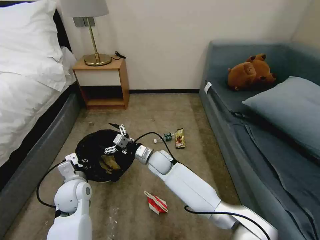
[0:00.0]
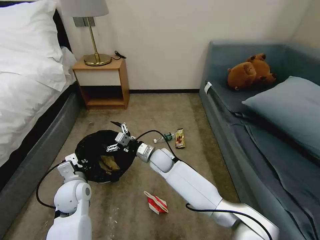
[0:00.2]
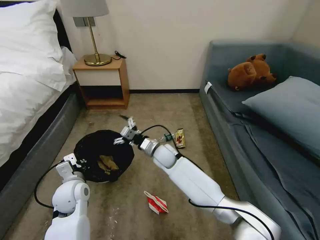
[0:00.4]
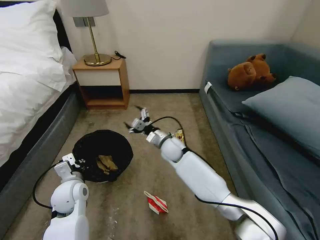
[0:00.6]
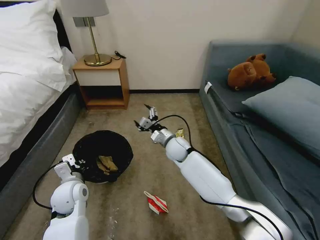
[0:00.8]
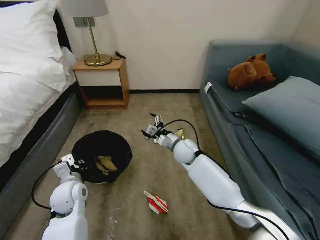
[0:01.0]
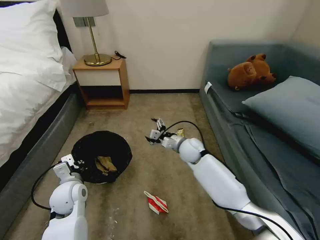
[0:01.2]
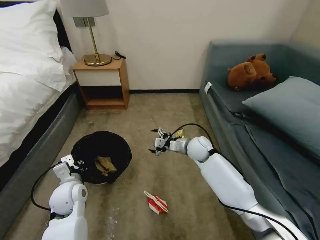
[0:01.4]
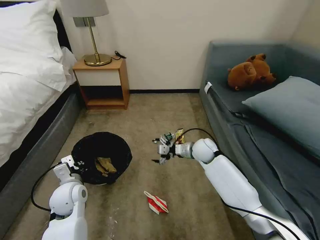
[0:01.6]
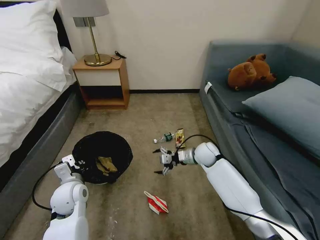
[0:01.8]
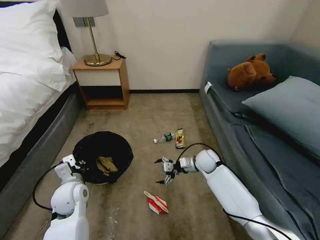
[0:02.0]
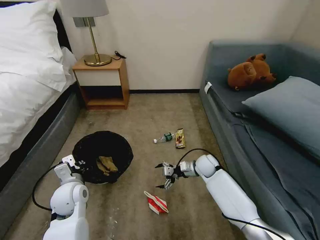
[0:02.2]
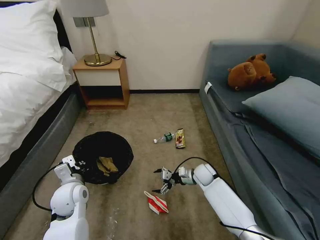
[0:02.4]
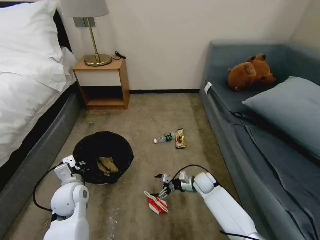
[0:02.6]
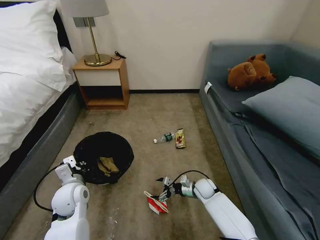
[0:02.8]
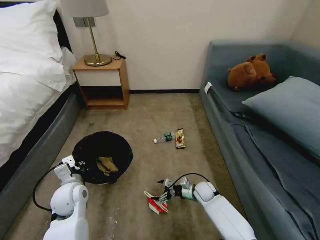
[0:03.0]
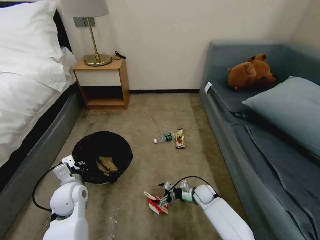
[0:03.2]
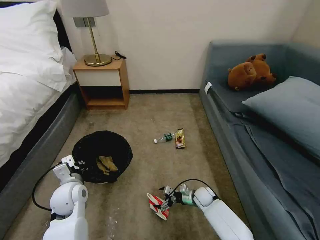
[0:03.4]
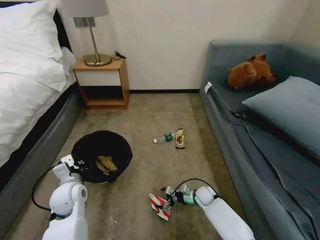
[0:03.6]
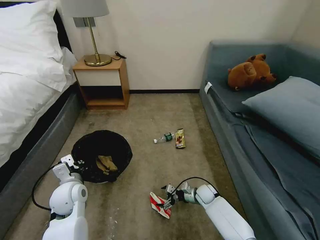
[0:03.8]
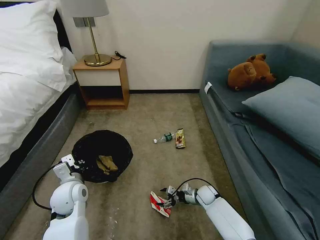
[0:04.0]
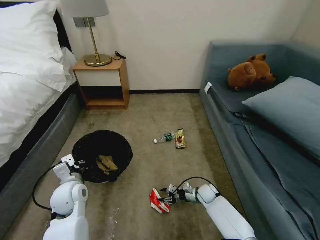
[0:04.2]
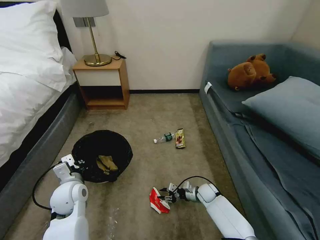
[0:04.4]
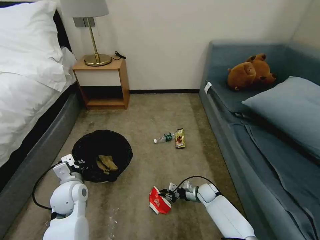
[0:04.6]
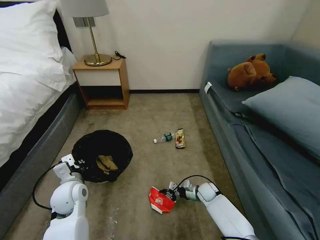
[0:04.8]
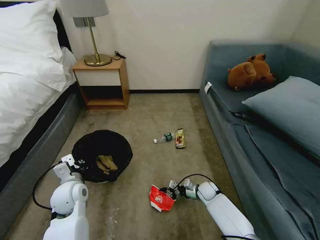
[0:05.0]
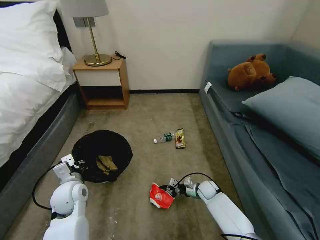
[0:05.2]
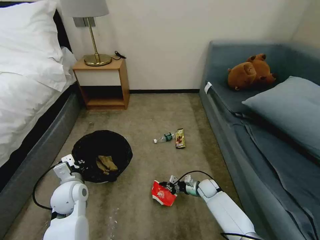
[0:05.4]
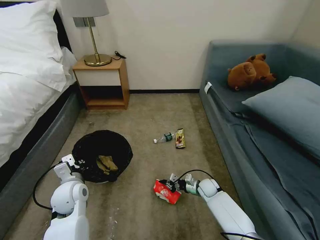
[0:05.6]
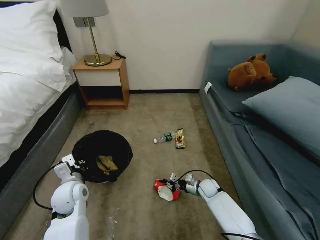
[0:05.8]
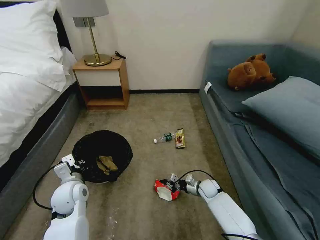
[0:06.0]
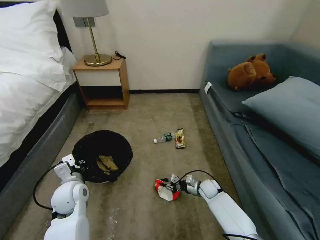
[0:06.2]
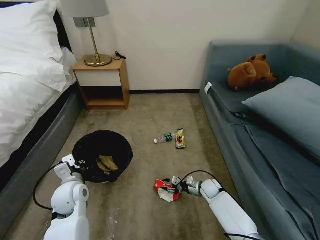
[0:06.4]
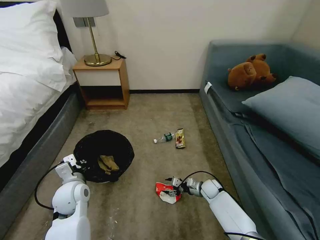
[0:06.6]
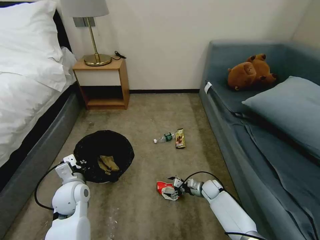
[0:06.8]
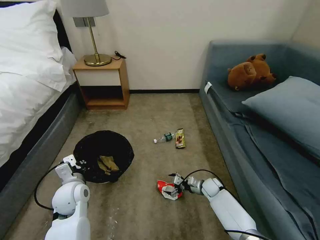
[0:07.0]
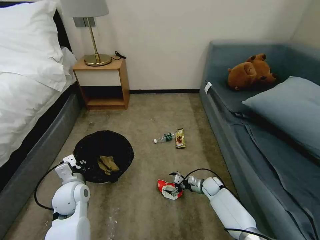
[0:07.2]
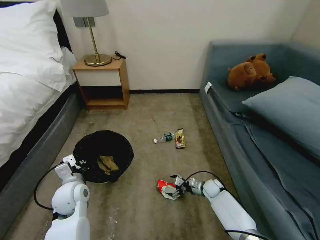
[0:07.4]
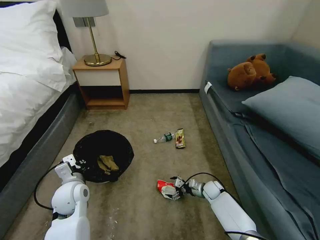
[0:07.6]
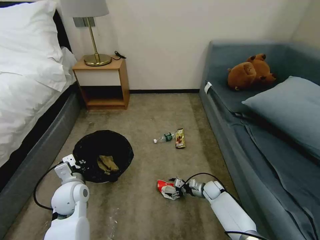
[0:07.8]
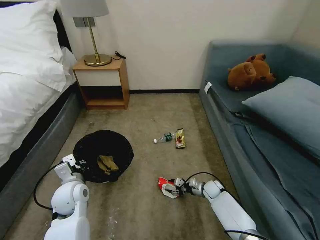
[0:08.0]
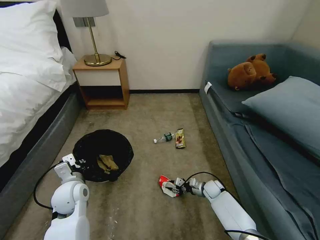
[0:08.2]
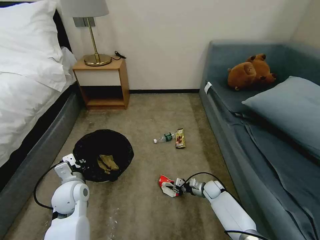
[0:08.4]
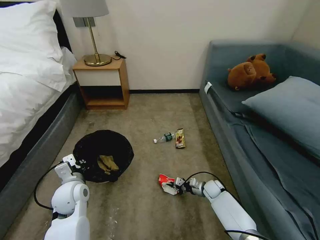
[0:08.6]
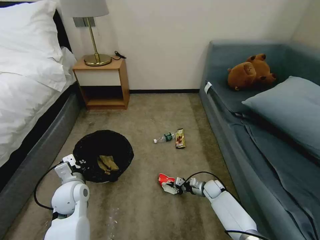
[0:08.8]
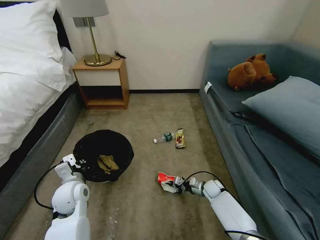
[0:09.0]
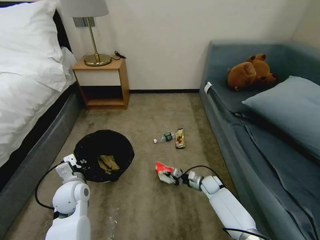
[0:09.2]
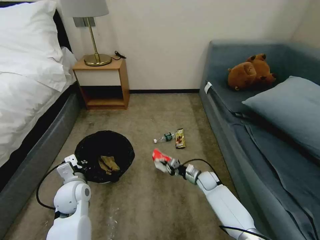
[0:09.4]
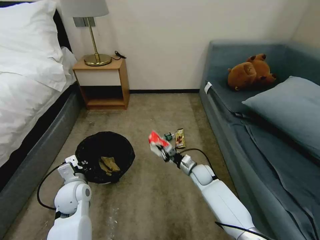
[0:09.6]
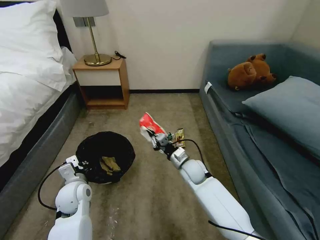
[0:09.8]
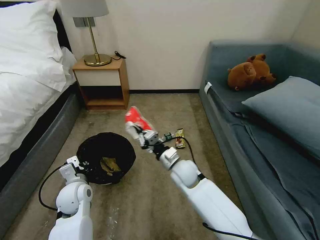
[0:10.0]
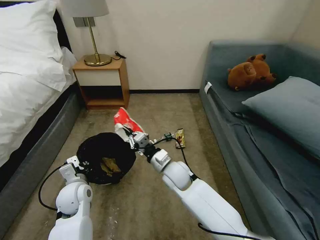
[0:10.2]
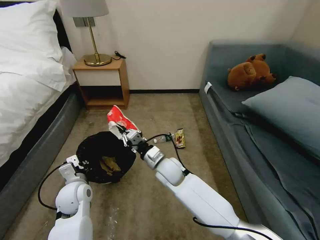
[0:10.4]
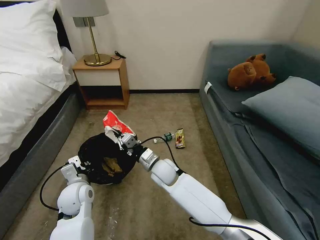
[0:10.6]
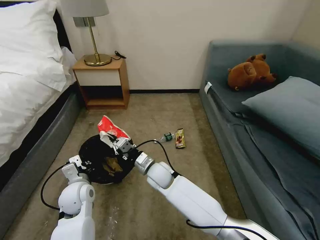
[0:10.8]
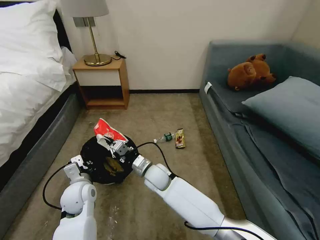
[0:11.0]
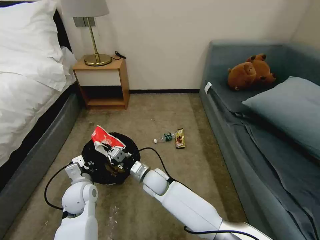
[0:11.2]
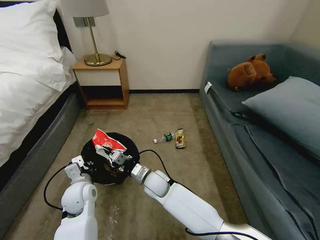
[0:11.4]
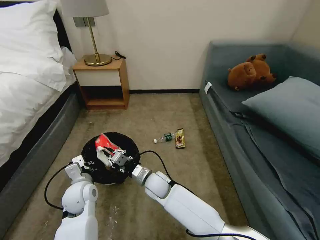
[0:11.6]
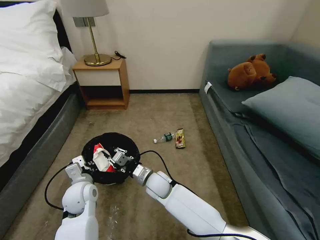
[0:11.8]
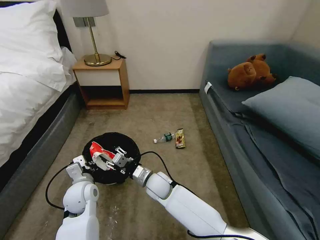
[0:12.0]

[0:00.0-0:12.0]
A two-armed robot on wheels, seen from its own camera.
Task of the whole recording: Pick up the trash bin, then pick up the garbage on the floor and place it into the trash bin.
0:00.0 to 0:01.6: The right gripper travels to the right by some 20 cm.
0:01.6 to 0:03.0: The right gripper heads downward and backward, covering about 20 cm.
0:03.0 to 0:04.4: The right gripper closes its fingers.
0:04.4 to 0:06.0: The right gripper closes.
0:06.0 to 0:07.6: The right gripper opens its fingers.
0:07.6 to 0:09.0: The right gripper closes its fingers.
0:09.0 to 0:10.4: The right gripper shifts roughly 35 cm to the left and upward.
0:10.4 to 0:12.0: The right gripper moves downward, some 5 cm, and opens.

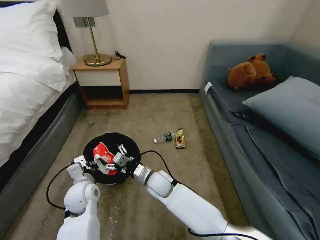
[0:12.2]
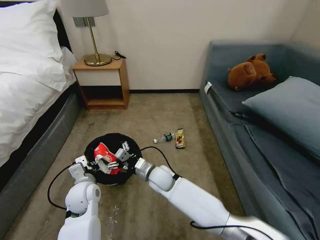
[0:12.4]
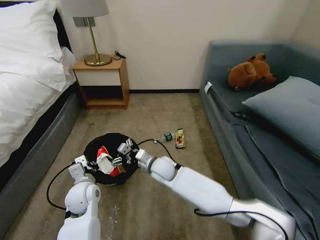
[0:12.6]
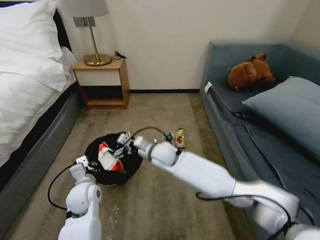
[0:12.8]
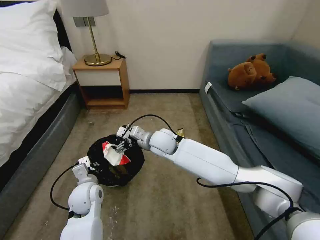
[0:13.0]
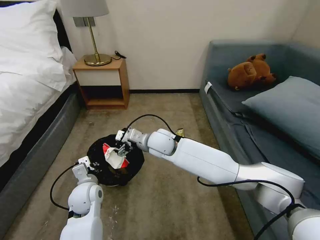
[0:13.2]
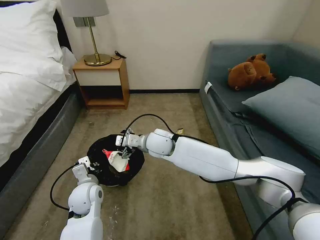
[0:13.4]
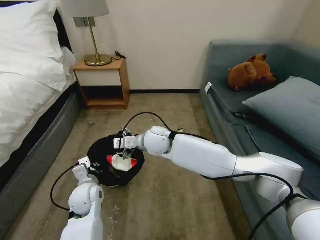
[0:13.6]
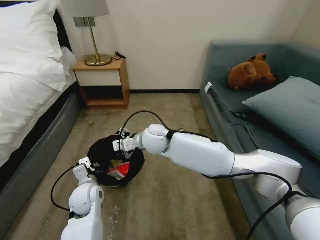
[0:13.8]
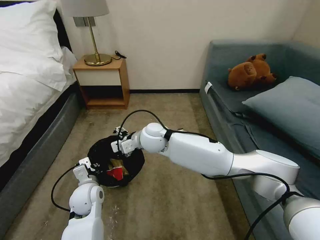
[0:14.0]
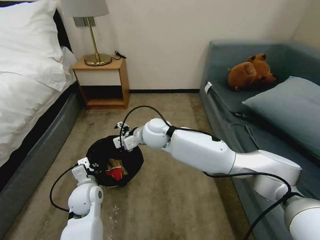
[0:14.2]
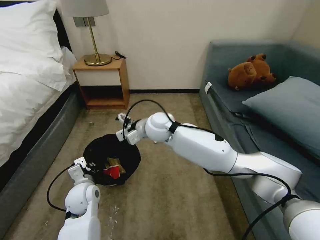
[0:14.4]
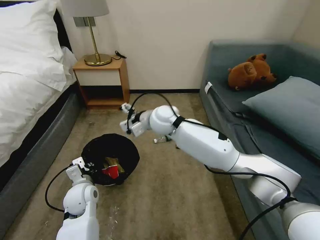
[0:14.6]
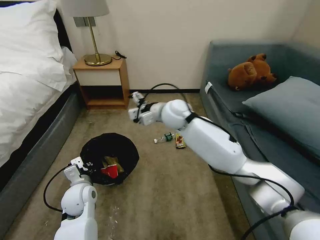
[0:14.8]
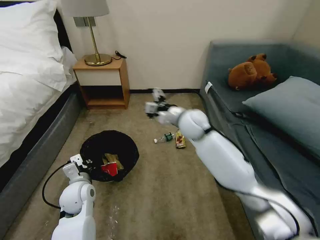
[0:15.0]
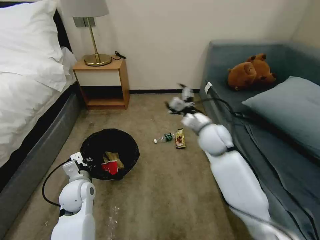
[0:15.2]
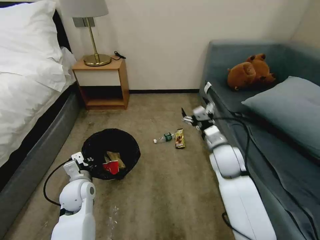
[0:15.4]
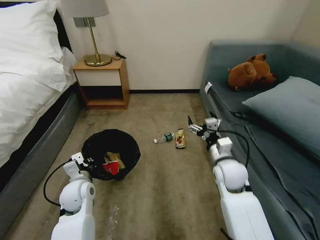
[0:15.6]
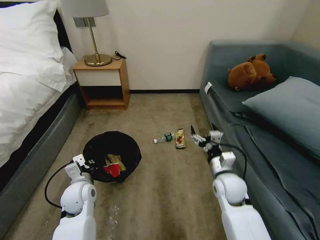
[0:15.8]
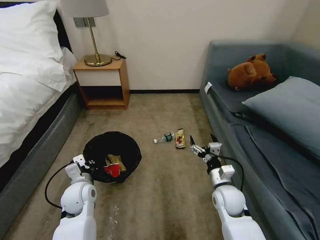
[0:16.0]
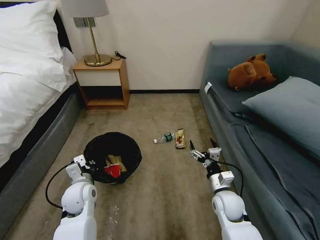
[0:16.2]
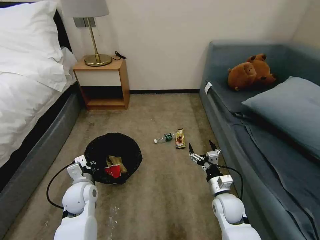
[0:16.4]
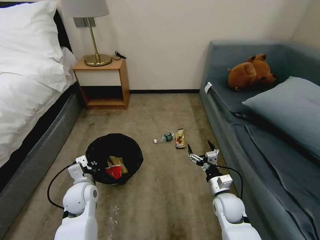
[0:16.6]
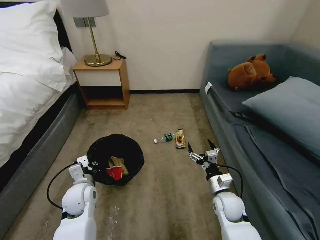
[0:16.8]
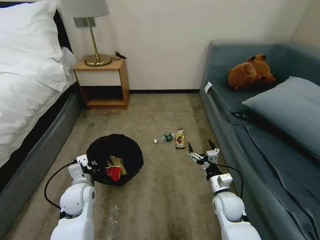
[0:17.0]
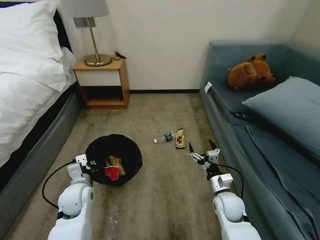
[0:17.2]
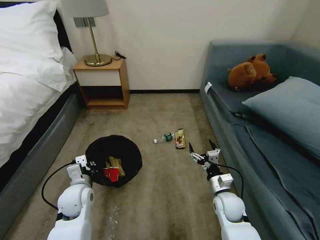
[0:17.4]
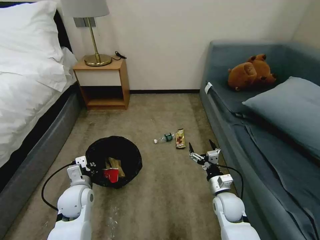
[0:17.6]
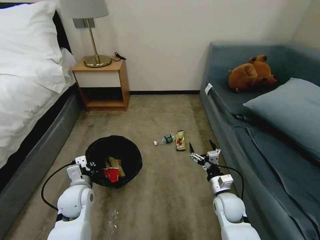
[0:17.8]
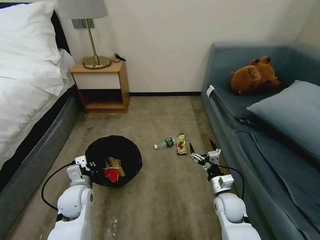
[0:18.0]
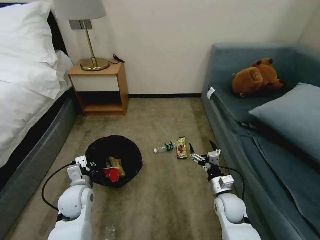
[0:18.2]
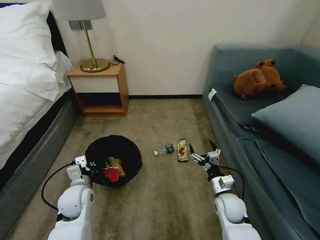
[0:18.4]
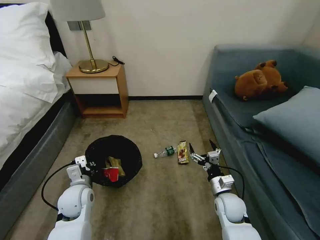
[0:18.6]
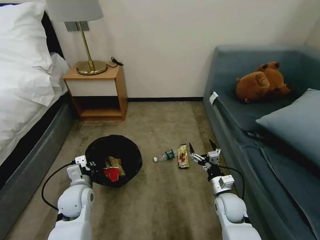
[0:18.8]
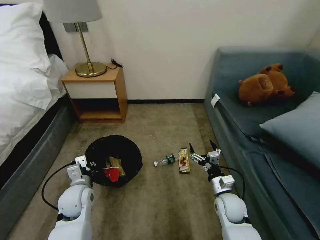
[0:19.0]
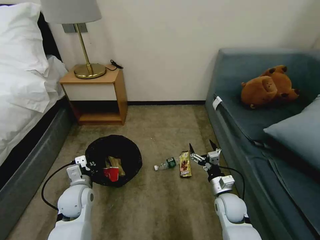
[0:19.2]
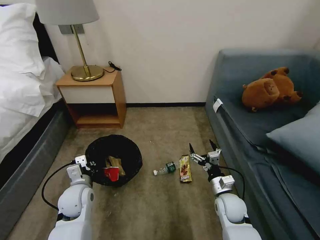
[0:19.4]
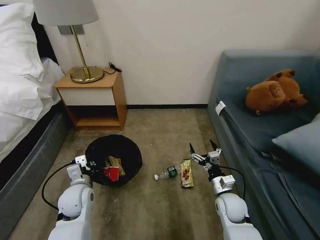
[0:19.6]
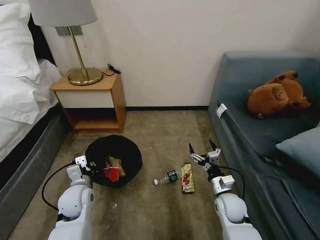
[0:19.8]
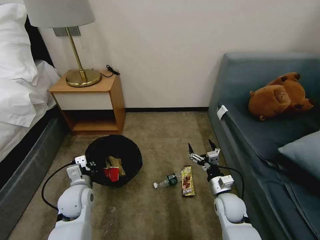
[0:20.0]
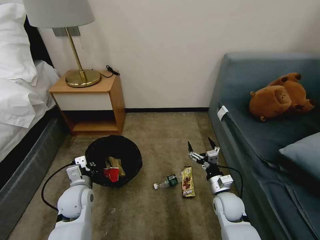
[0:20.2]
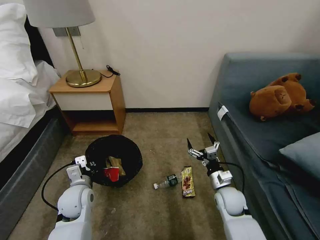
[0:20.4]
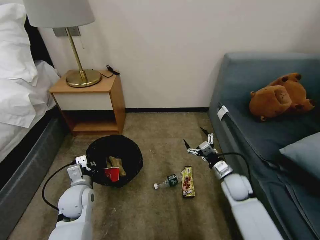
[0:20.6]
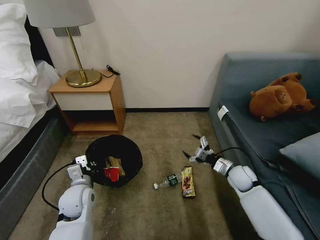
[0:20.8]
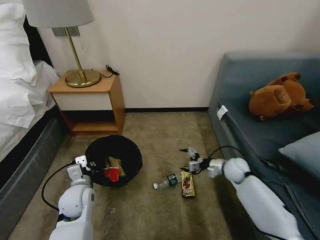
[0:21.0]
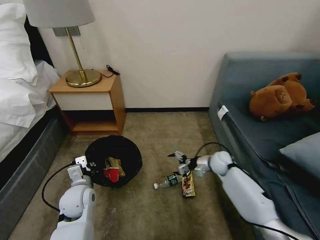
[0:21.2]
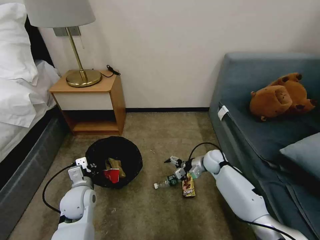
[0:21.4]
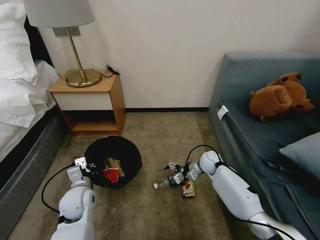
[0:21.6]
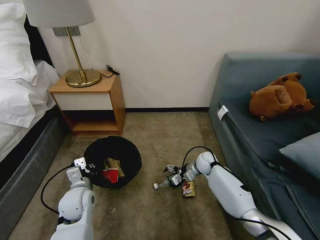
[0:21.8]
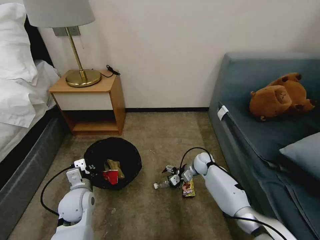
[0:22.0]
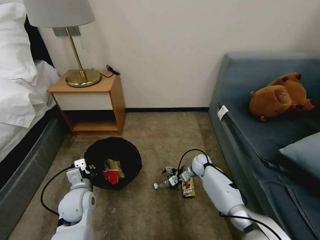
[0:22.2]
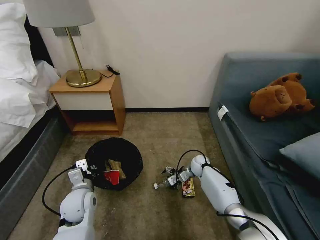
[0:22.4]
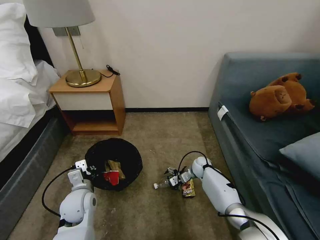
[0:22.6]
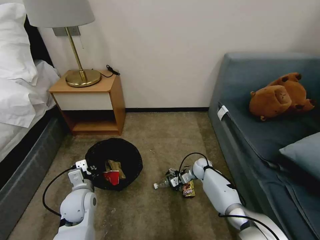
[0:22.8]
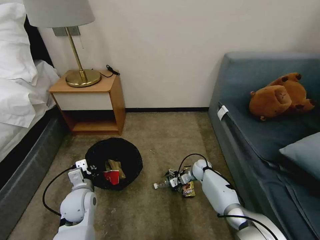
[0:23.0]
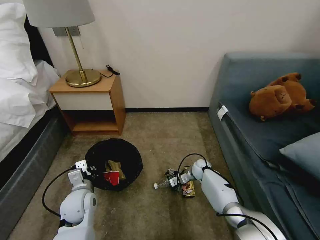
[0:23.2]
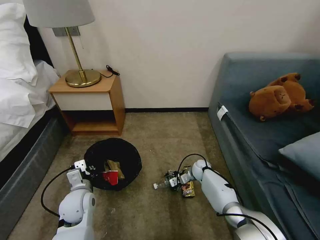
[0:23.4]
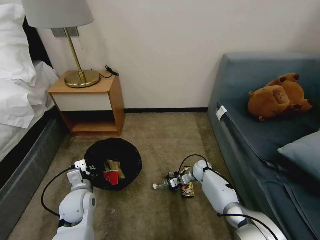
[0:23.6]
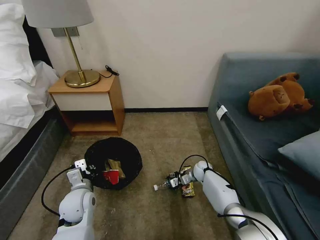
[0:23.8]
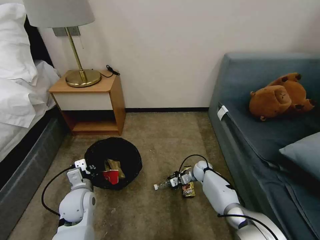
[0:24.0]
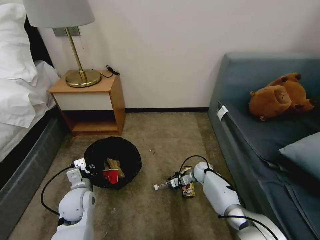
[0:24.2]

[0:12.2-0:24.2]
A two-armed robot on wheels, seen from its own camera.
Task of the whole recording: Pick up the trash bin, then pick up the garbage on the floor and place it into the trash bin.
0:12.2 to 0:13.8: The right gripper moves upward and forward, approximately 20 cm.
0:13.8 to 0:15.2: The right gripper moves to the right, roughly 20 cm.
0:15.2 to 0:16.6: The right gripper heads downward and backward, covering approximately 25 cm.
0:16.6 to 0:18.2: The grippers make only small movements.
0:19.8 to 0:21.2: The right gripper travels forward by about 15 cm.
0:21.2 to 0:22.6: The right gripper is displaced downward and to the left by roughly 10 cm.
0:22.6 to 0:24.2: The right gripper closes up.
